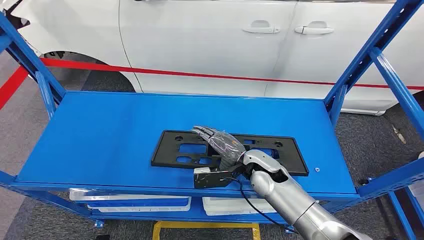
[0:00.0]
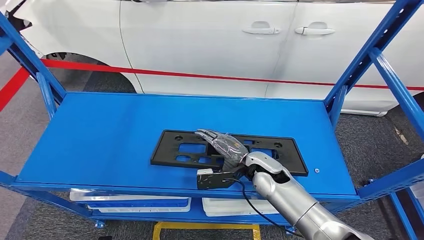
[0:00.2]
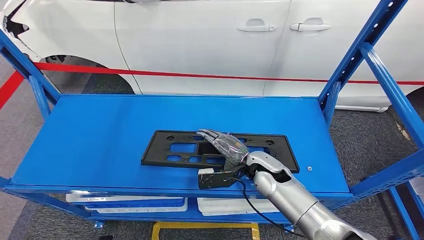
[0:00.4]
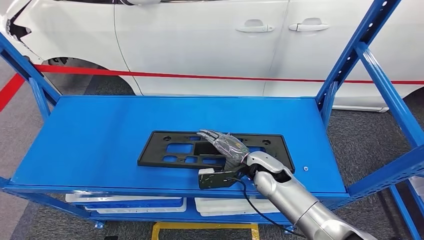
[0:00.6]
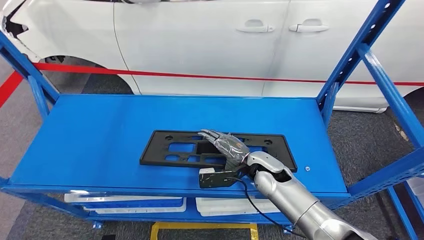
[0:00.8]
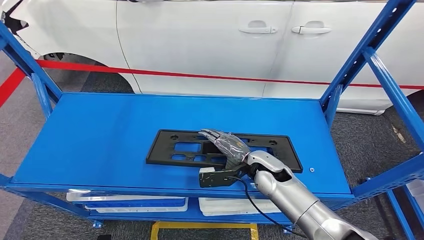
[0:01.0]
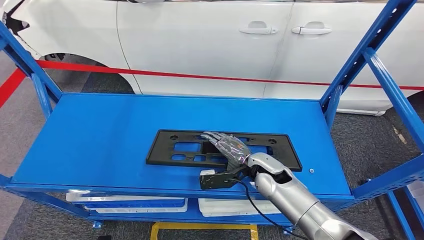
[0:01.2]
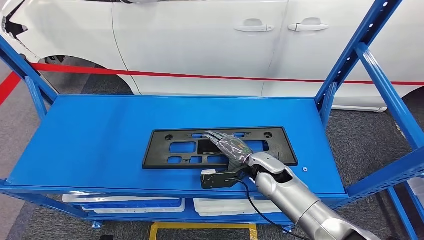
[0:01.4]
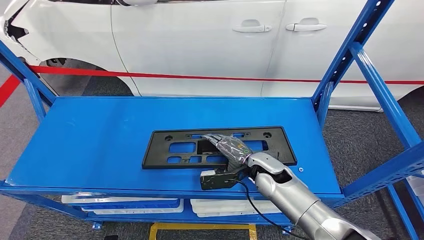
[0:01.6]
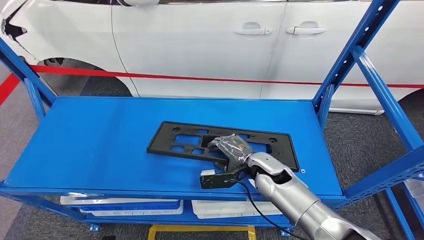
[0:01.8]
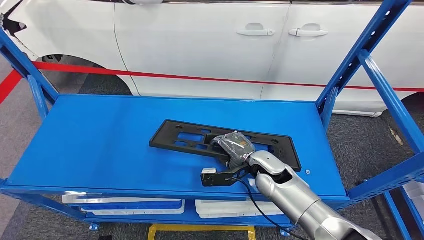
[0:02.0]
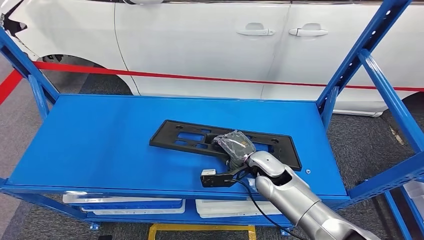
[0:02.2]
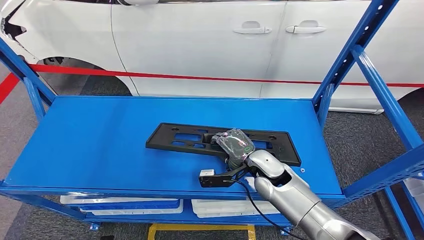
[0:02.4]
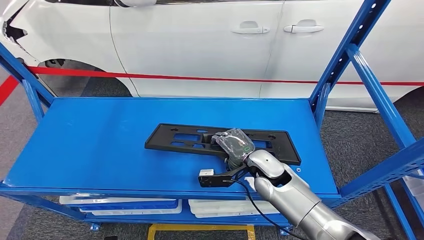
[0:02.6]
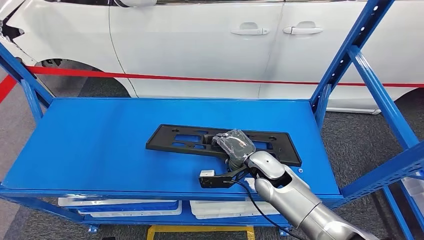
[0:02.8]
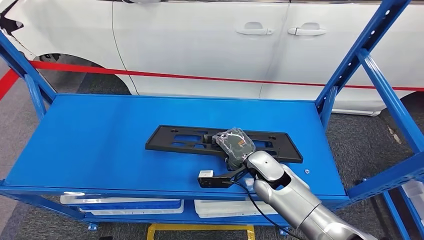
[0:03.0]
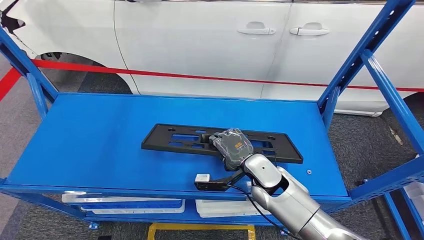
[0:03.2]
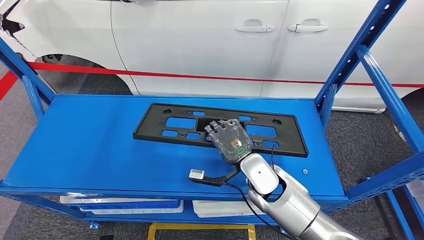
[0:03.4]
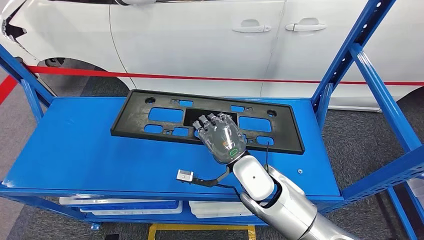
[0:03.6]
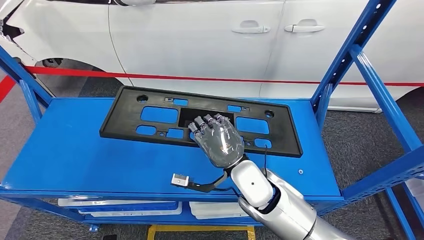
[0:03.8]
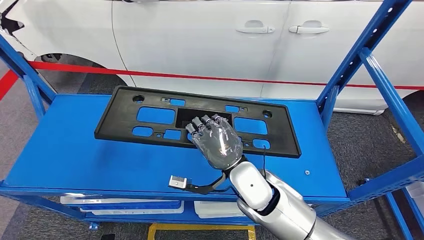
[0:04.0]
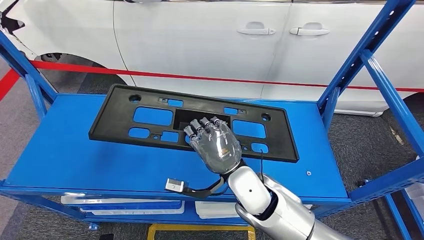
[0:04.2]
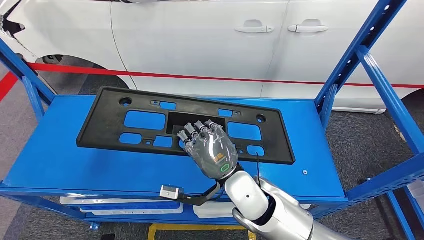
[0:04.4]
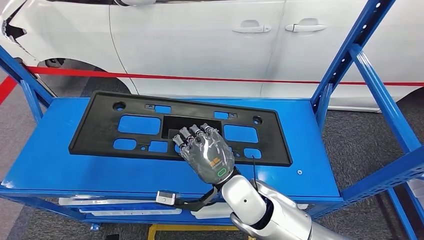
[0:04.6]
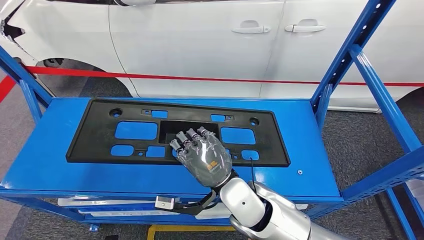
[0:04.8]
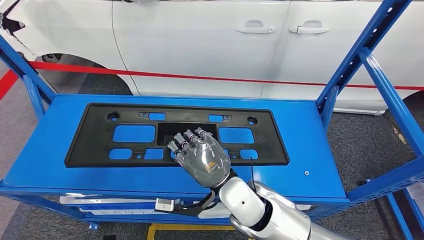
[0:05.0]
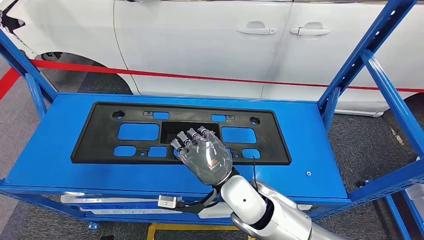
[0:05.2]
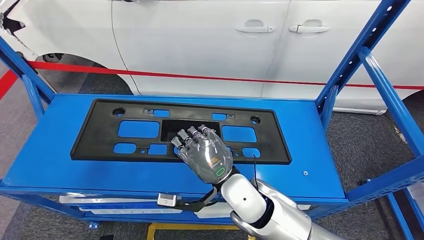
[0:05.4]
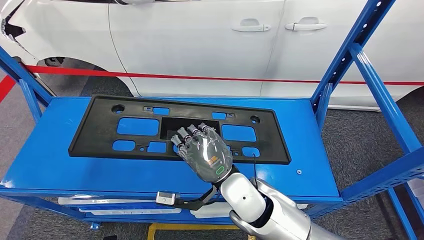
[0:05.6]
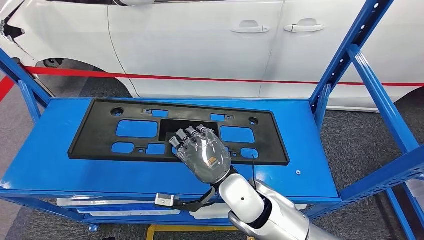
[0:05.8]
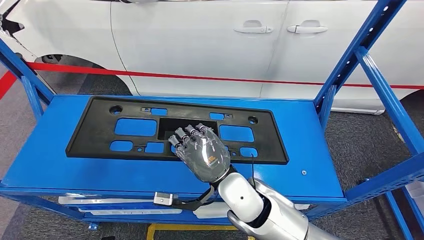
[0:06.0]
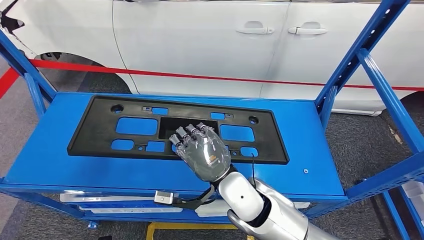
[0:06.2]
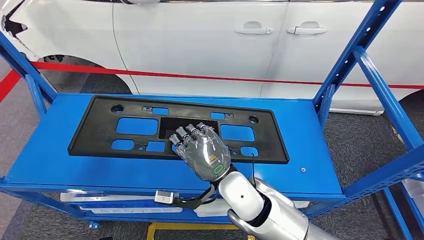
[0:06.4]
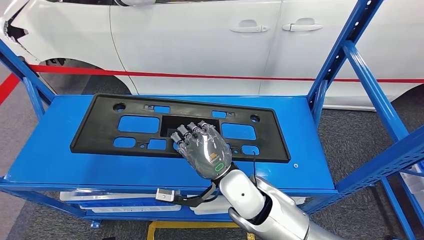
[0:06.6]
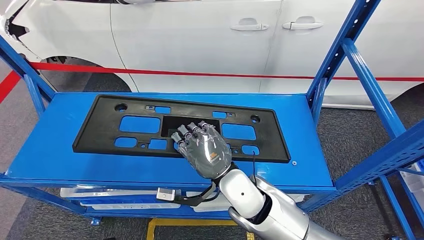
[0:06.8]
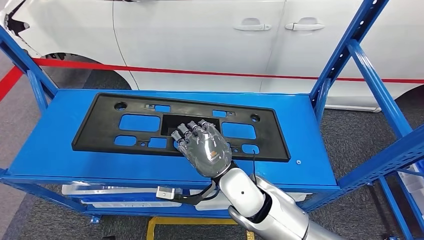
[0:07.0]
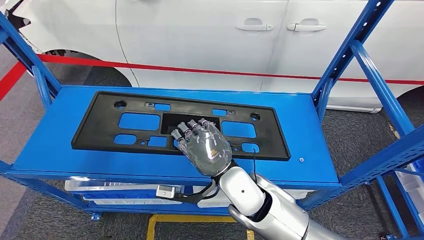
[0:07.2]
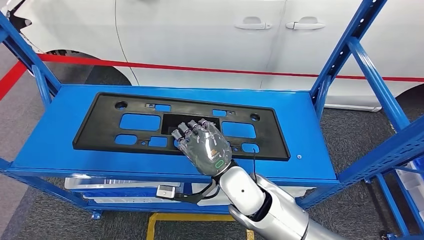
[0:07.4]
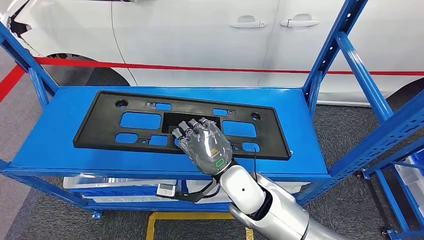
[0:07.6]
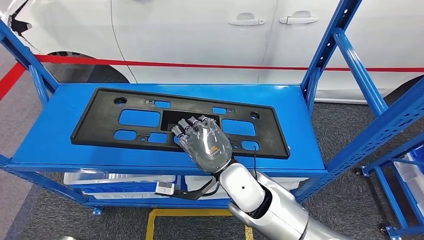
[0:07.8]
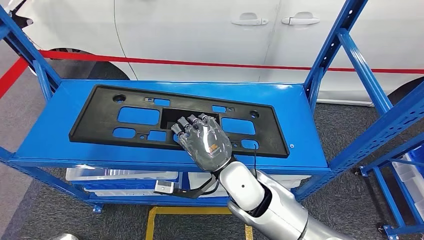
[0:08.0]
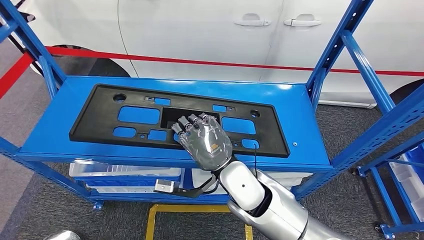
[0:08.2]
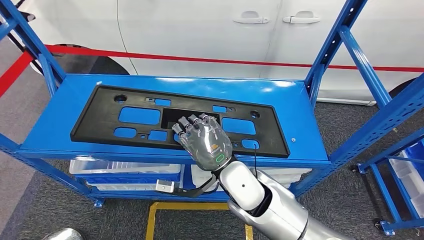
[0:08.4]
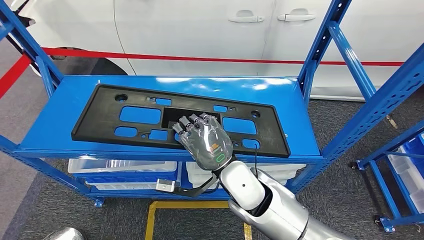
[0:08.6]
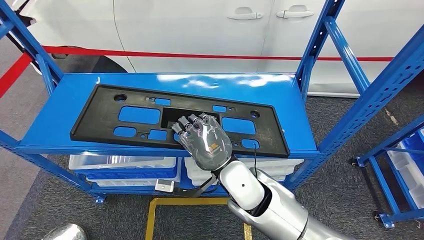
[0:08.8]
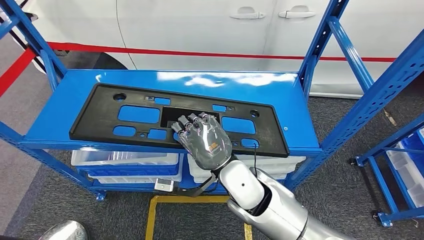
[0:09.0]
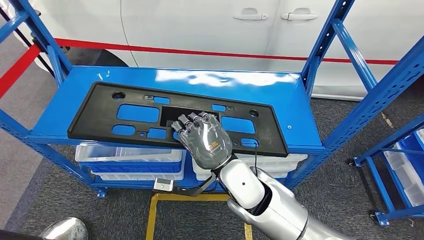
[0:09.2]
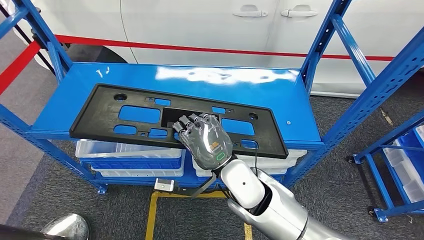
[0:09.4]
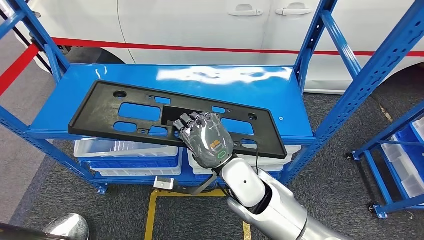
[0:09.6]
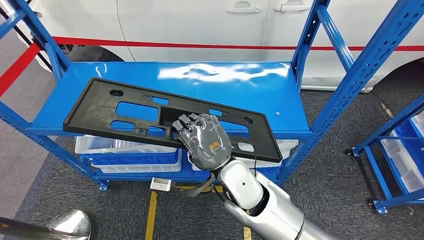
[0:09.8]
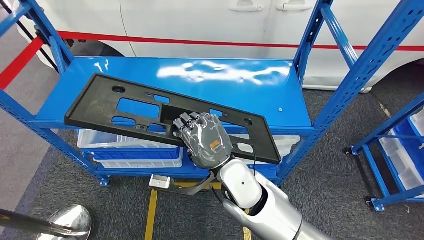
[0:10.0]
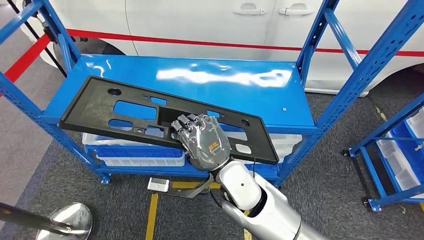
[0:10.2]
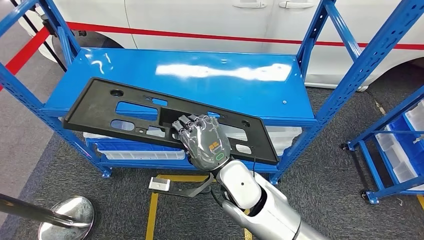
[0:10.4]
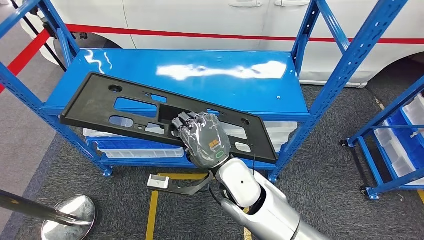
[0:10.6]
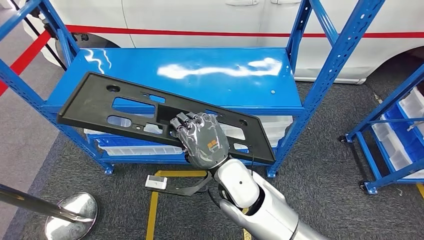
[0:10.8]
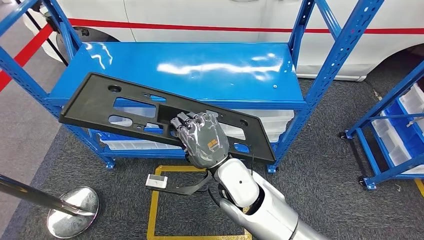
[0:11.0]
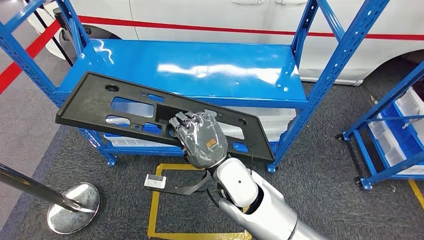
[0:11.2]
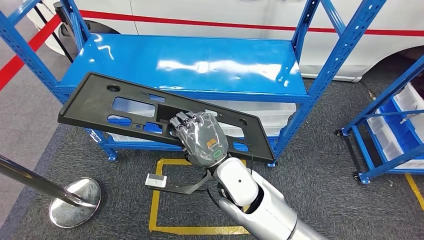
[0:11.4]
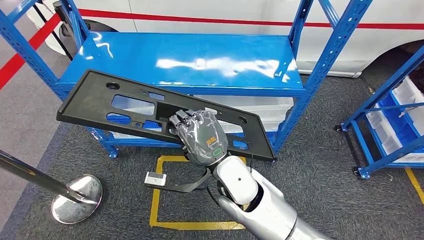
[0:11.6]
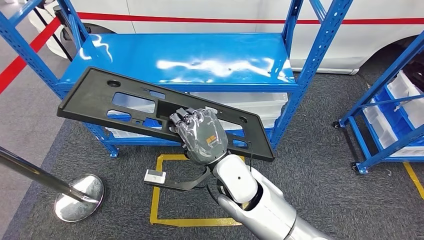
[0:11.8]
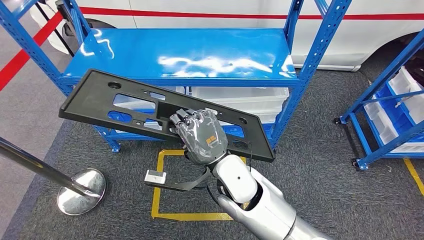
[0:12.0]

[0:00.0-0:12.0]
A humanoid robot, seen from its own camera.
Step, 0:00.0 to 0:08.8: Pick up the large material from the shelf.
0:04.4 to 0:06.0: The hands move only a little.

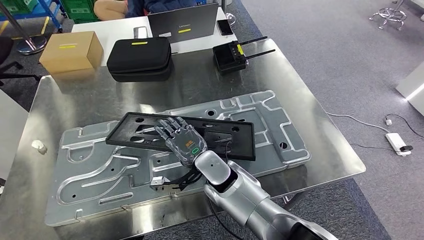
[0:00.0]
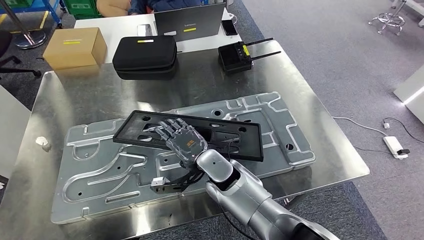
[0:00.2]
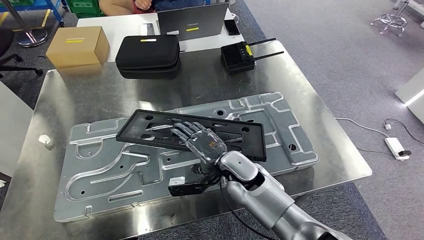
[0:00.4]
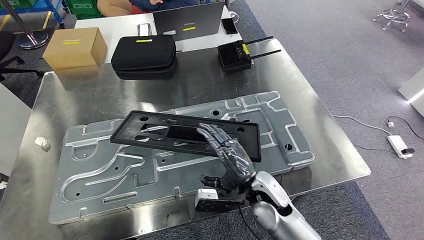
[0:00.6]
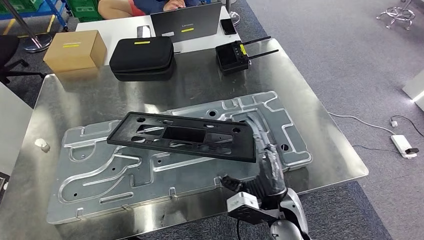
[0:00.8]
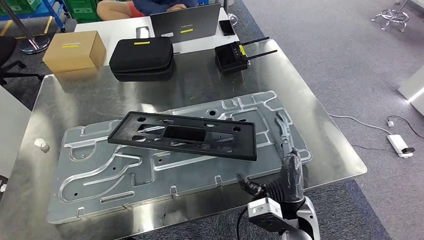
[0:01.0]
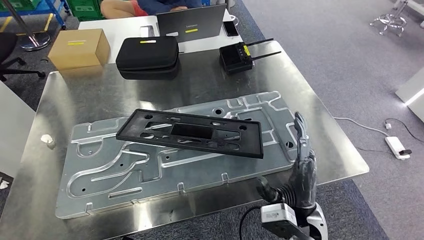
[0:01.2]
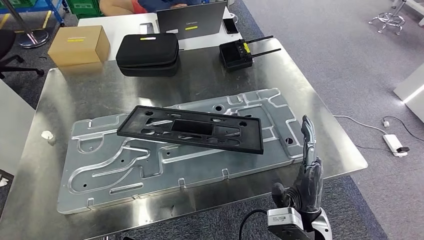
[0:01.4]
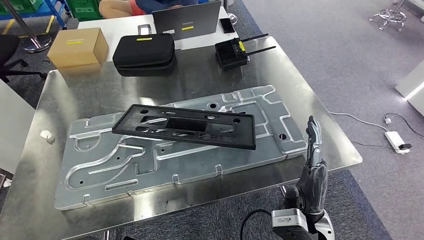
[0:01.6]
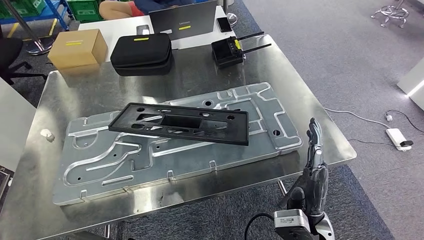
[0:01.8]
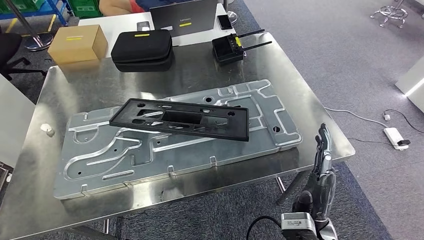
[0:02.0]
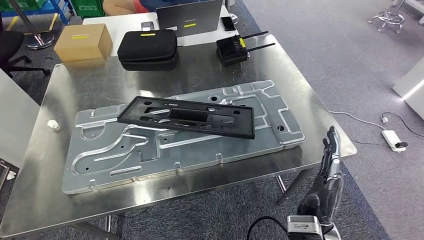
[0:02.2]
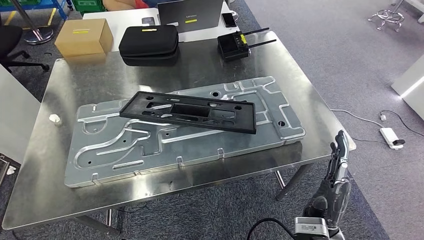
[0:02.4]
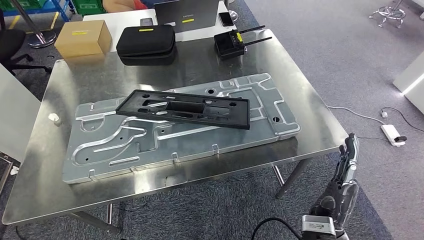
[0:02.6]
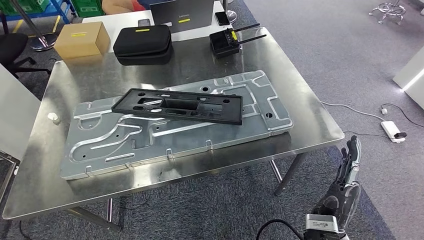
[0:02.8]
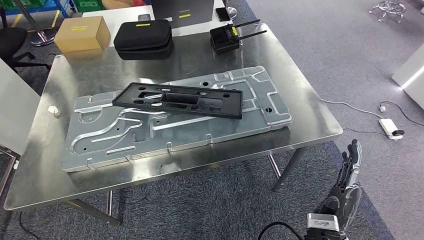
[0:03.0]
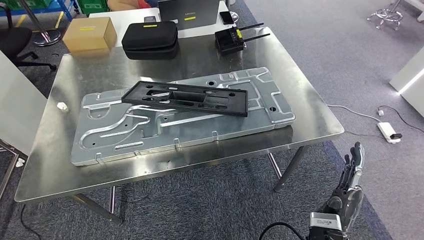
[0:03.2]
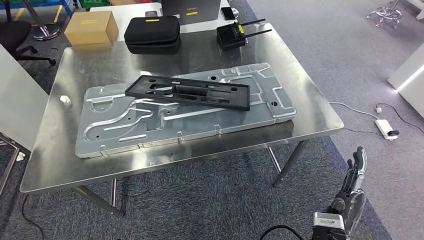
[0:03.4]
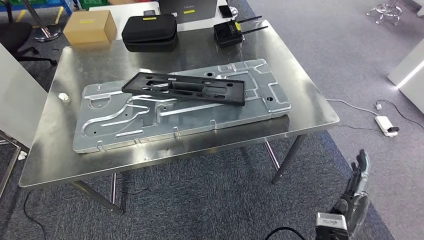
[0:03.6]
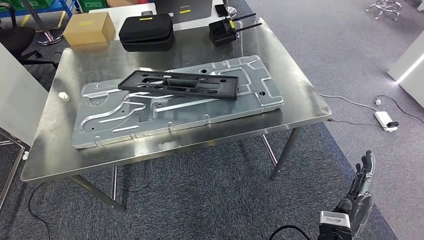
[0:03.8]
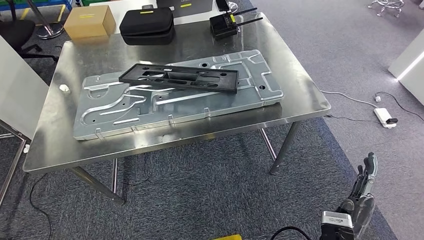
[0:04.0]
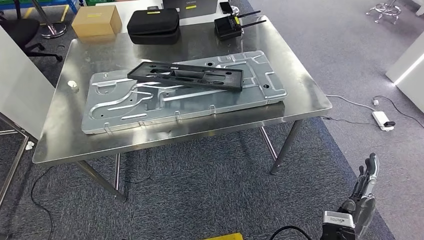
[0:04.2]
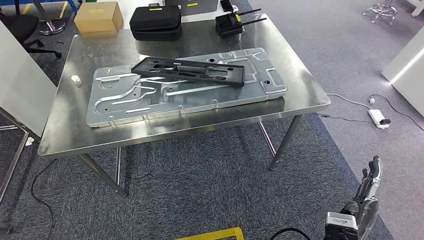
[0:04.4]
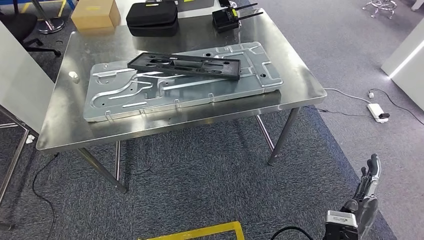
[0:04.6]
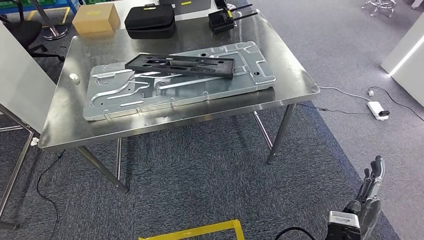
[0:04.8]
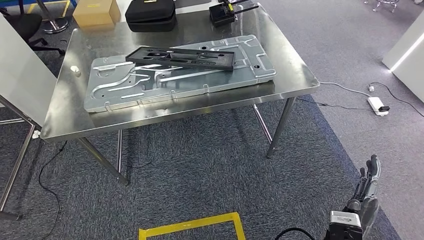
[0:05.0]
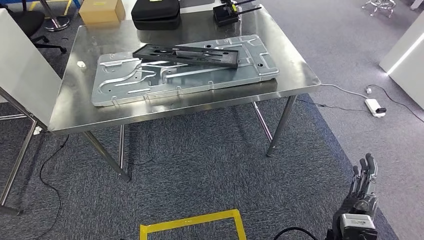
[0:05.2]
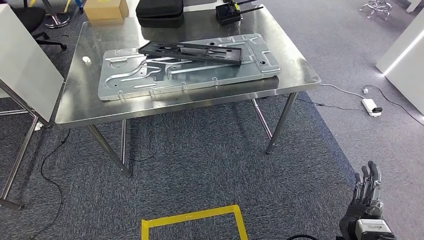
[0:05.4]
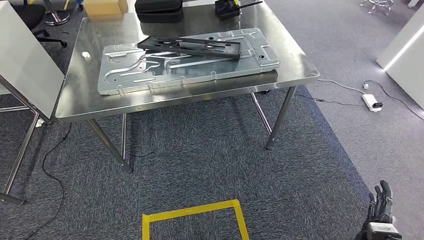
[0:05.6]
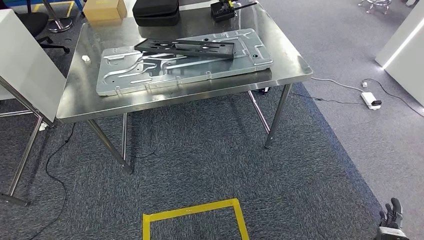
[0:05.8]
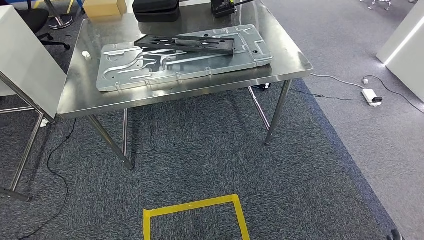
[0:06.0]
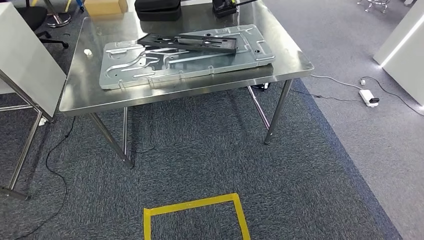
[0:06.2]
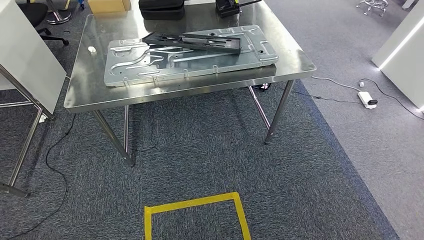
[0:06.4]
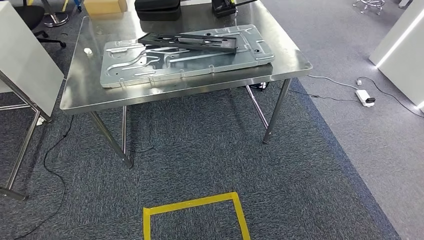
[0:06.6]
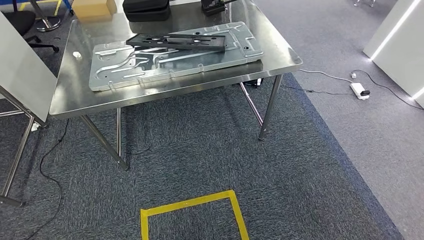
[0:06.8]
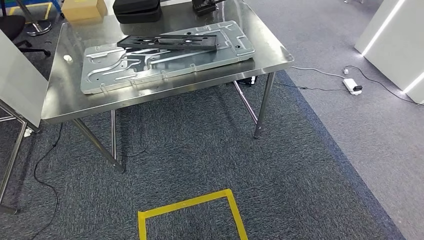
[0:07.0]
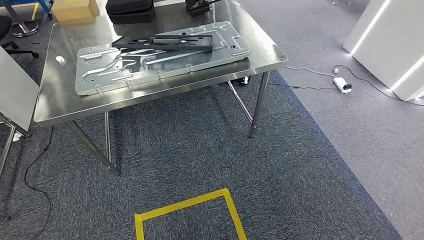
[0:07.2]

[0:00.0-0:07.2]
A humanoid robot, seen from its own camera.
Step, 0:00.0 to 0:02.0: Insert the large material into the corresponding slot on the workbench.
